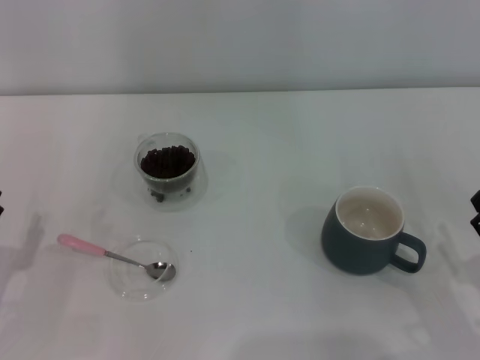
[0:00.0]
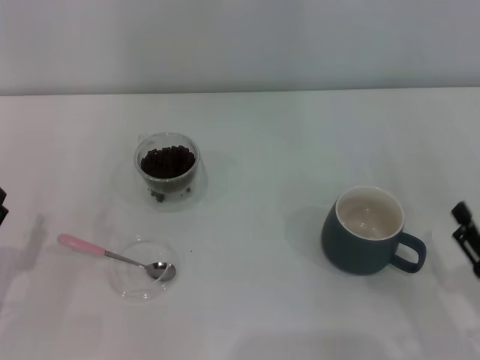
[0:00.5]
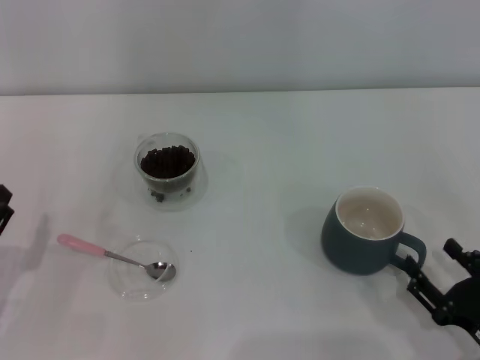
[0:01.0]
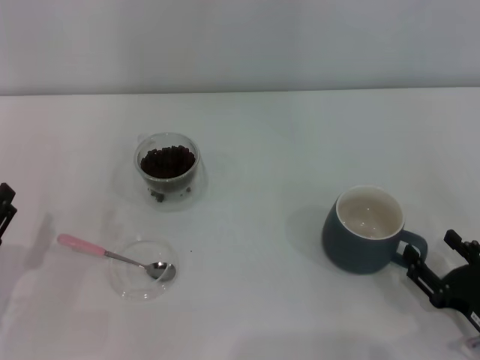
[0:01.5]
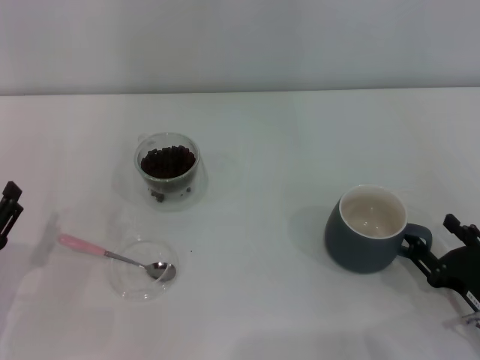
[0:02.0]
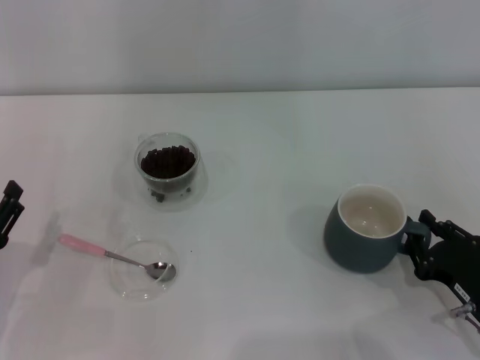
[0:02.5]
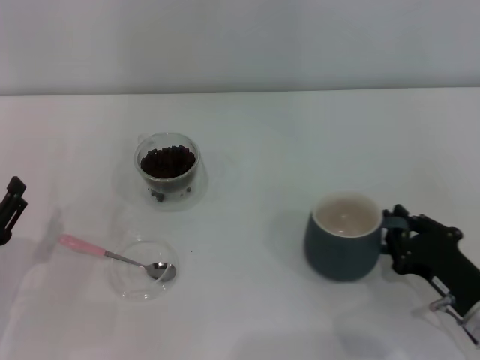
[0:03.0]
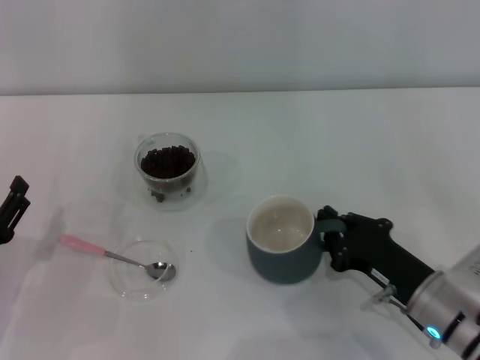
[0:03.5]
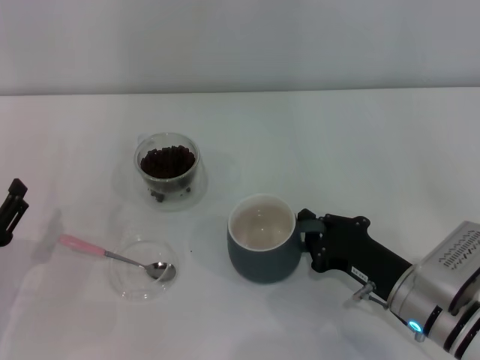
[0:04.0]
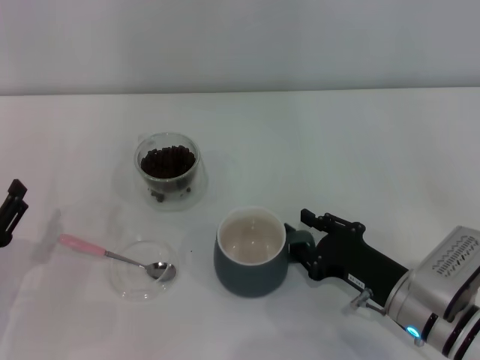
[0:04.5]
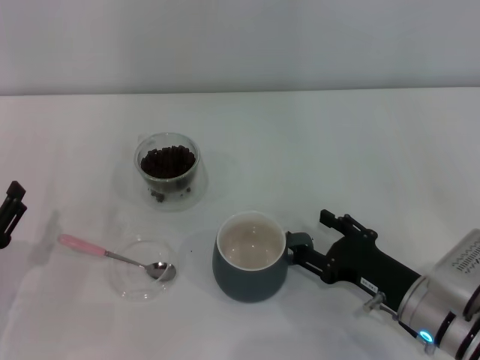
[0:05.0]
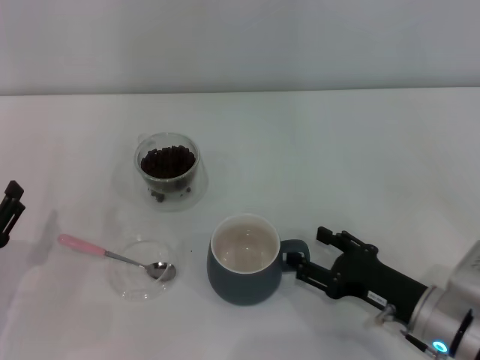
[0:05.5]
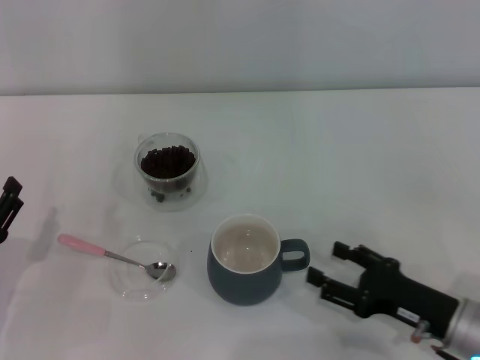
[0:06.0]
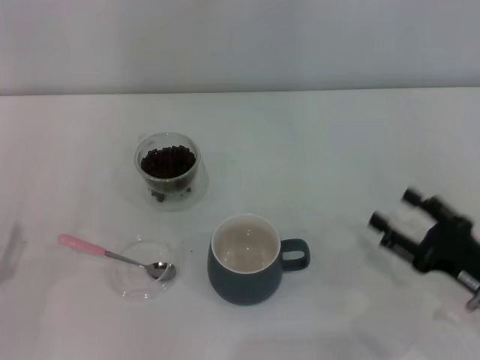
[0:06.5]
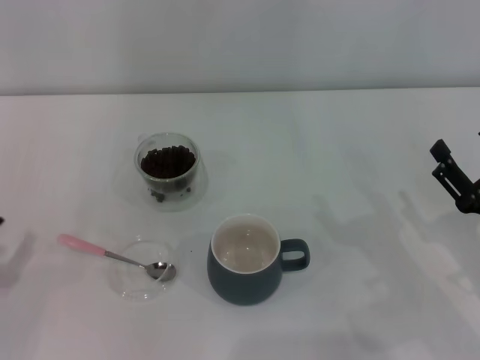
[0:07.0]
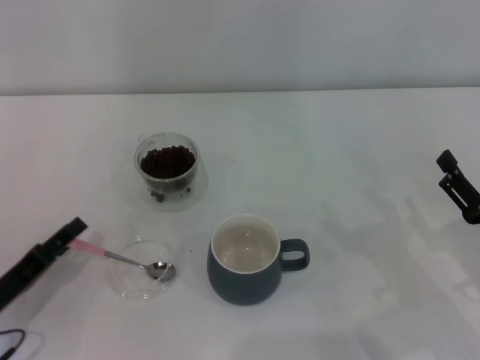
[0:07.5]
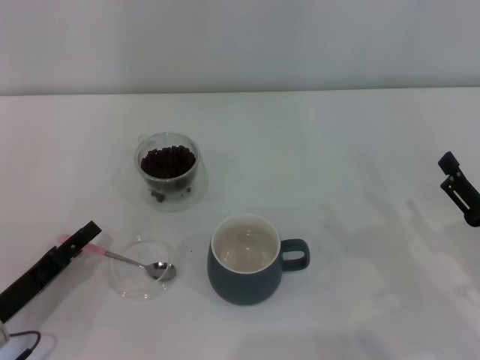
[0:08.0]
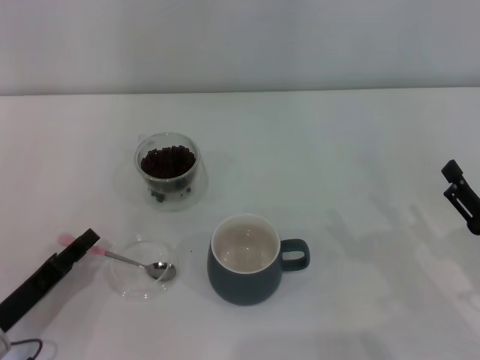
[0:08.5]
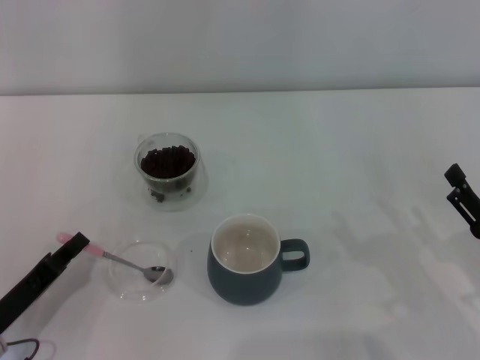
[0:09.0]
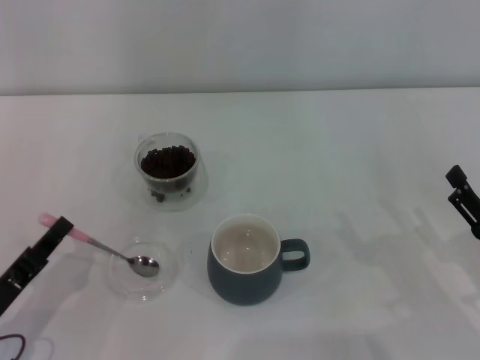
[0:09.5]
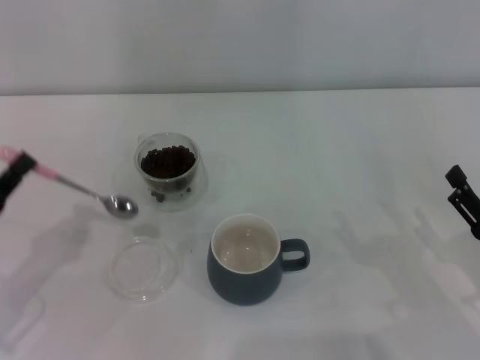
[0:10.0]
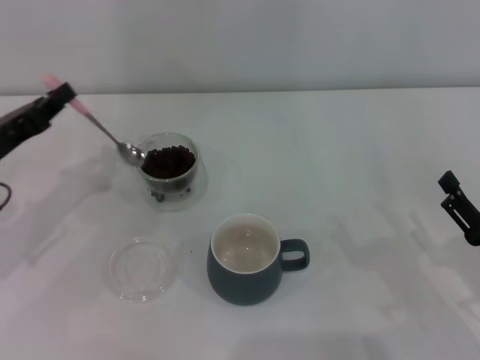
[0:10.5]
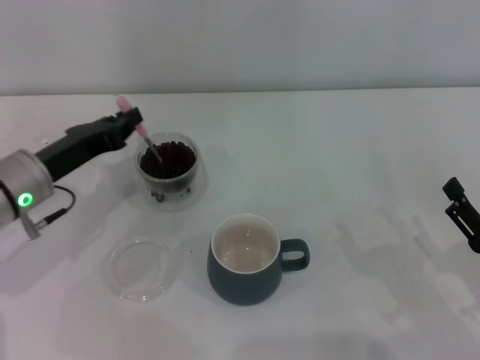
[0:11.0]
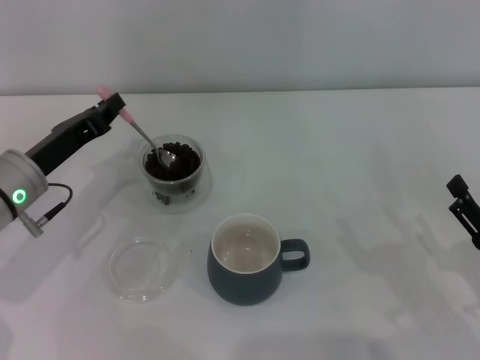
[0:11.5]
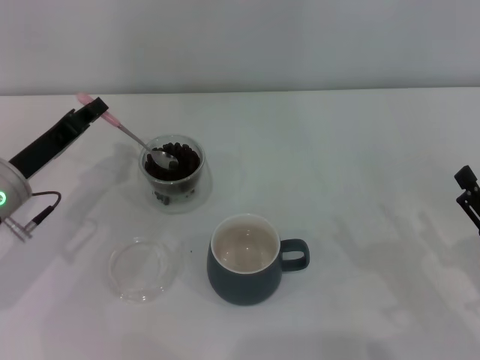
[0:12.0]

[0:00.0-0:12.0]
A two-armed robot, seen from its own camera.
Task of the whole recording: Use a pink spoon to take out the coffee beans from the glass and pour them into the gray cup.
Step, 0:06.5 to 0:09.5: Pick up the spoon with the right gripper.
0:00.0 to 0:02.0: There are only small adjustments of the grippers.
0:02.0 to 0:04.0: The right gripper is displaced to the left and forward by approximately 10 cm, and closes.
0:04.0 to 0:06.0: The right gripper ends up some 5 cm from where it was, and opens up.
0:06.0 to 0:08.0: The right gripper moves to the right, approximately 5 cm.
0:08.0 to 0:10.0: The left gripper goes some 5 cm upward, and closes up.
0:10.0 to 0:12.0: The left gripper shifts roughly 15 cm forward and to the right.

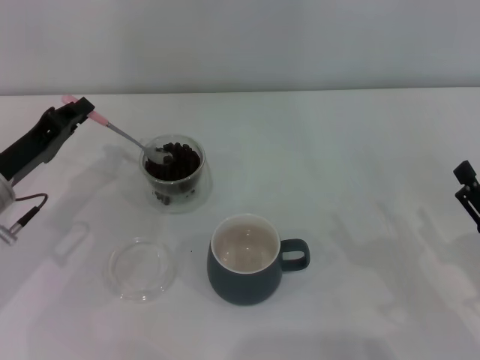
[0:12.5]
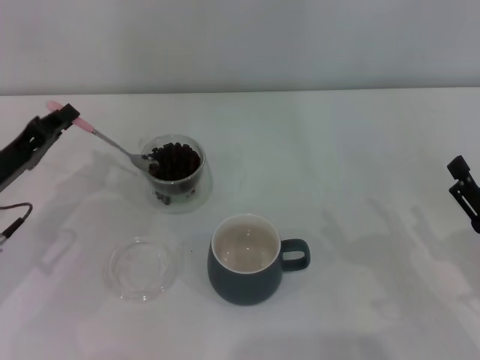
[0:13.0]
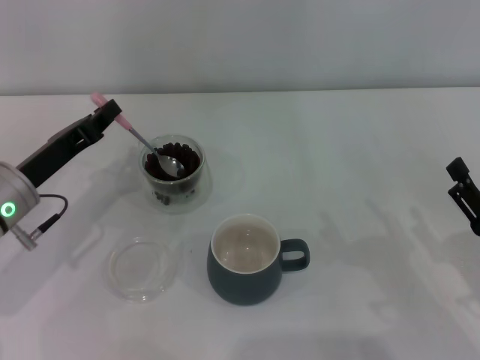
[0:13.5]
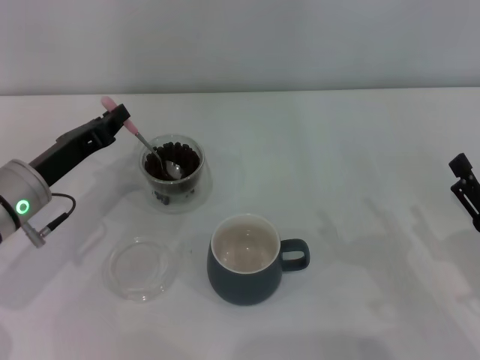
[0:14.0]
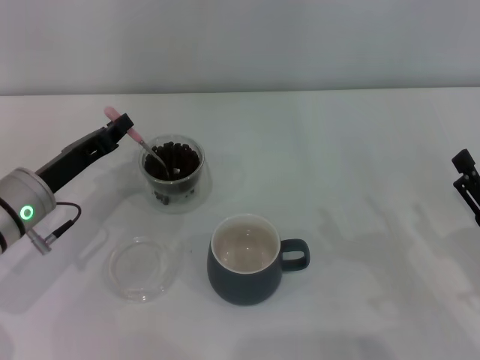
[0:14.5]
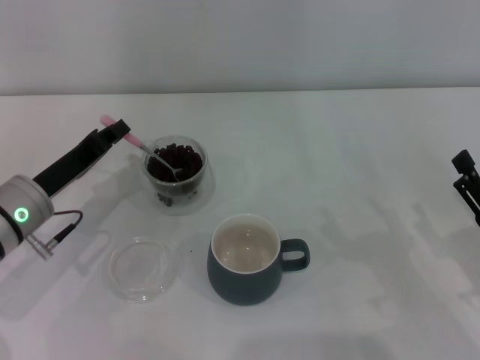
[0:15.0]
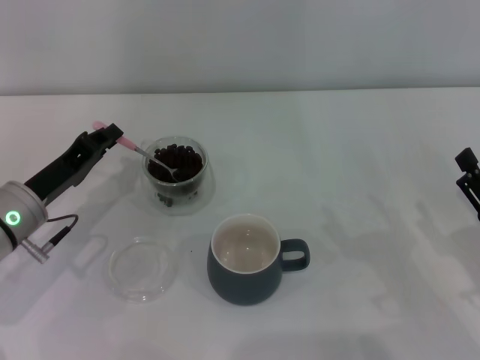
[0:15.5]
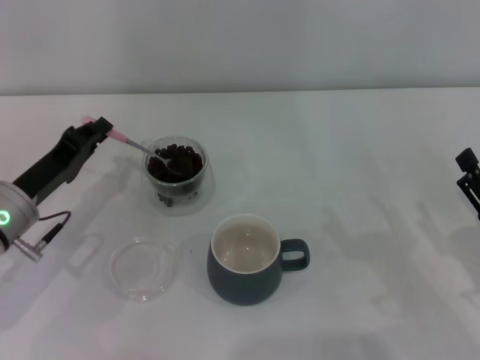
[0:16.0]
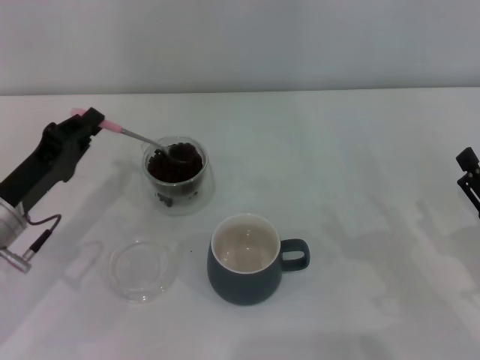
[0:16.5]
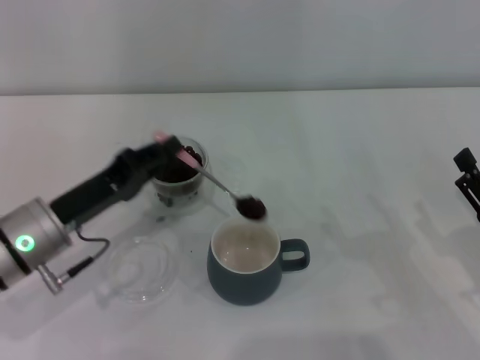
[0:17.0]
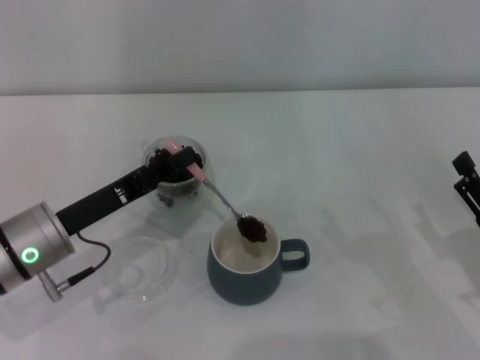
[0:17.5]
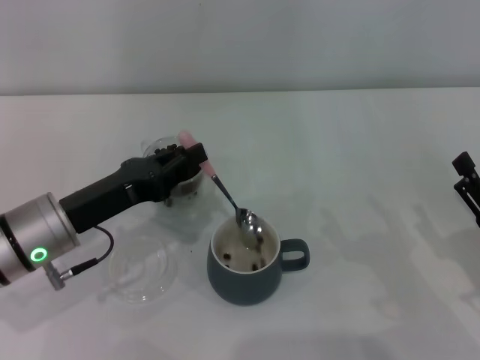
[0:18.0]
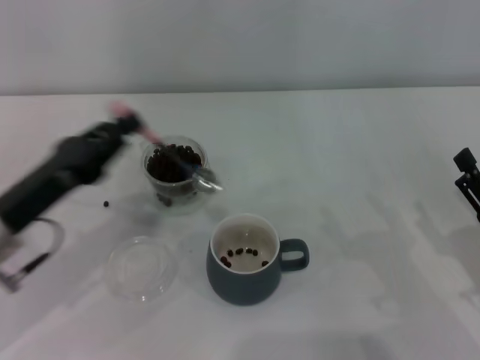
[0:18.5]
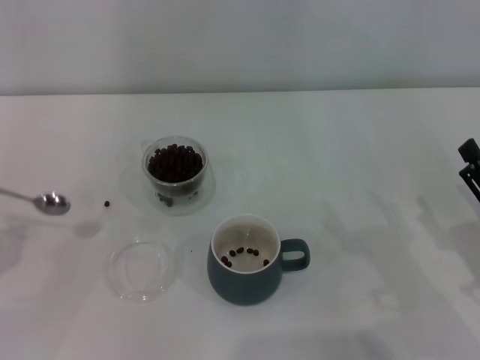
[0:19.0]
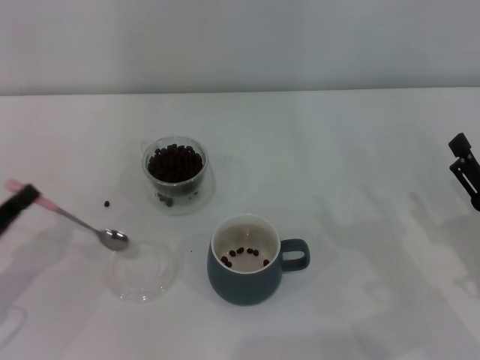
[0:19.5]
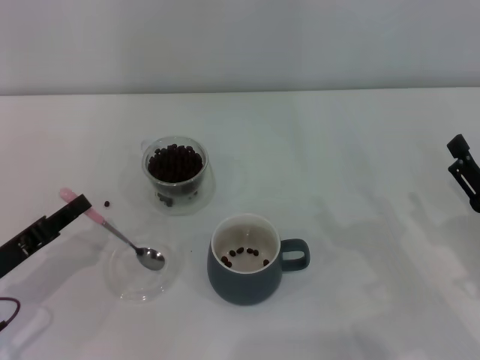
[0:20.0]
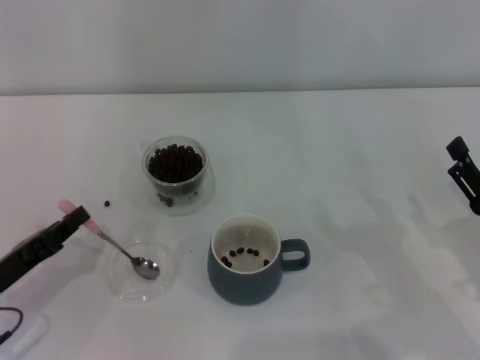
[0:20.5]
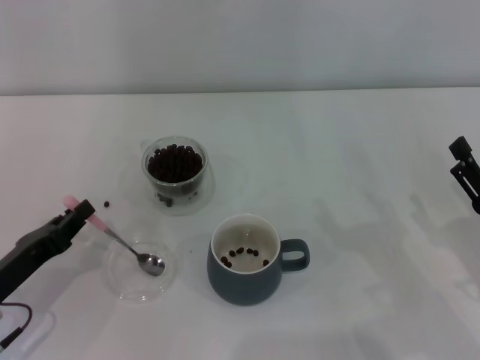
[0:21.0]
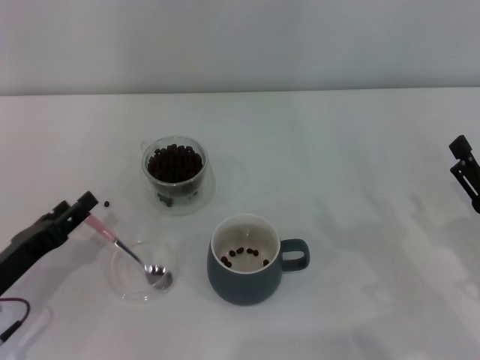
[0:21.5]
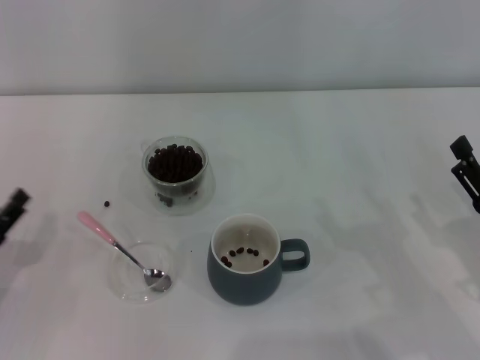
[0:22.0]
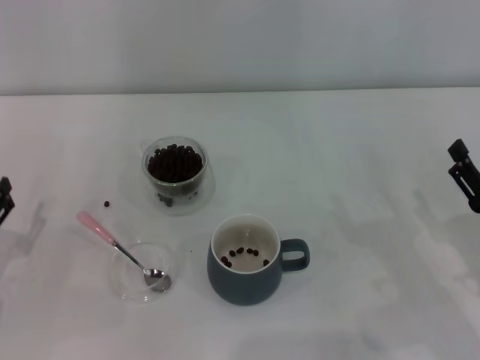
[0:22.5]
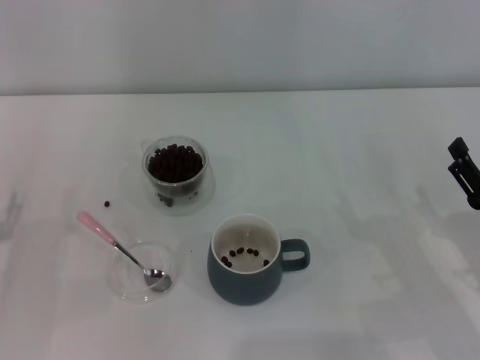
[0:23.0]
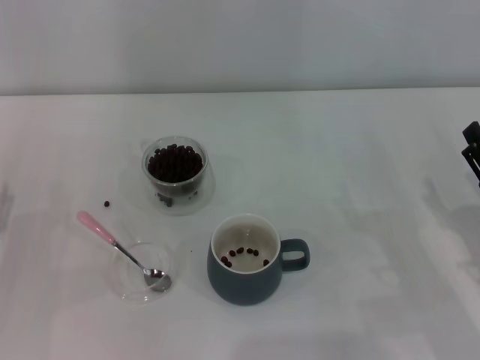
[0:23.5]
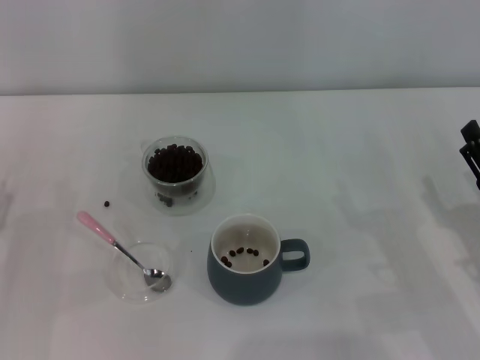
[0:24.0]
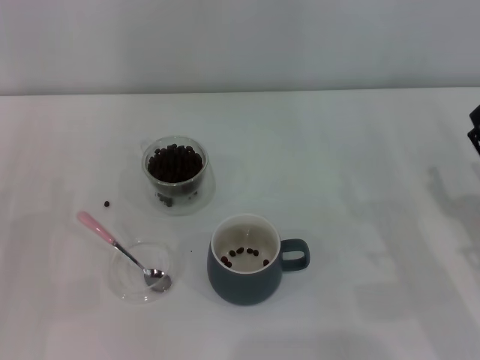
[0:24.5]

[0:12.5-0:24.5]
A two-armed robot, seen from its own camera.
Task of the whole recording: Use a pink spoon to take out the coffee beans from the glass and pour them into the gray cup.
0:18.5 to 0:20.5: The left gripper travels downward and to the left by some 10 cm.
0:20.5 to 0:22.5: The left gripper opens its fingers.

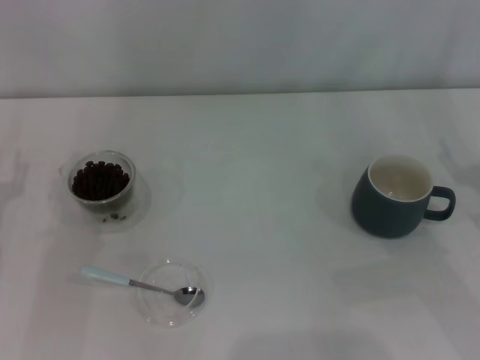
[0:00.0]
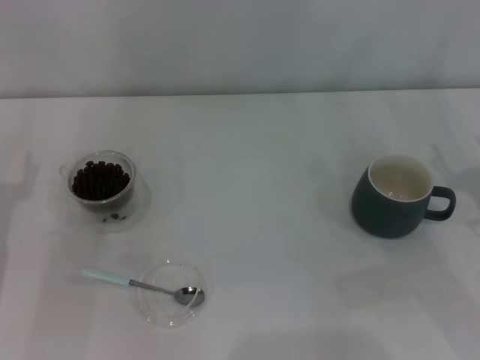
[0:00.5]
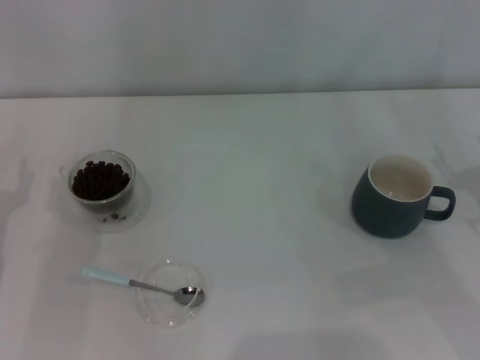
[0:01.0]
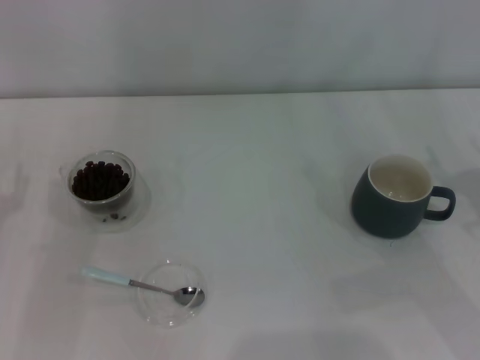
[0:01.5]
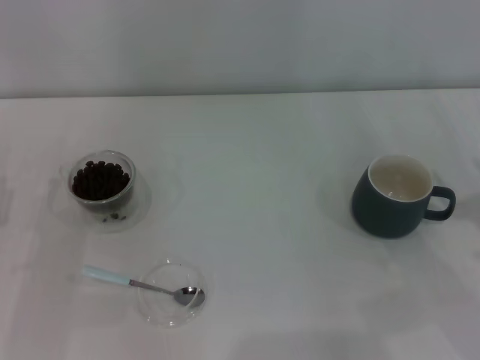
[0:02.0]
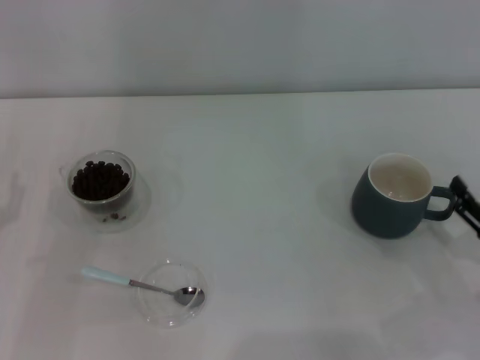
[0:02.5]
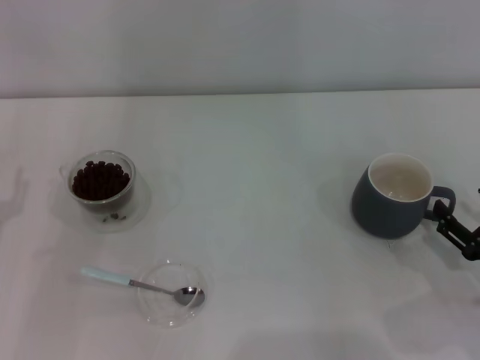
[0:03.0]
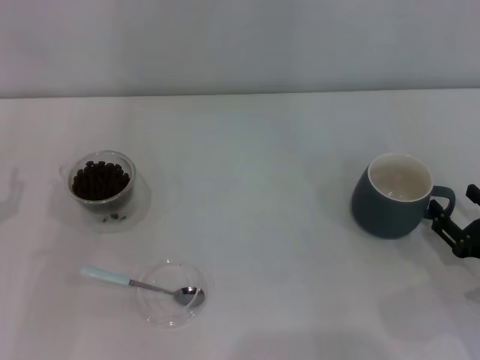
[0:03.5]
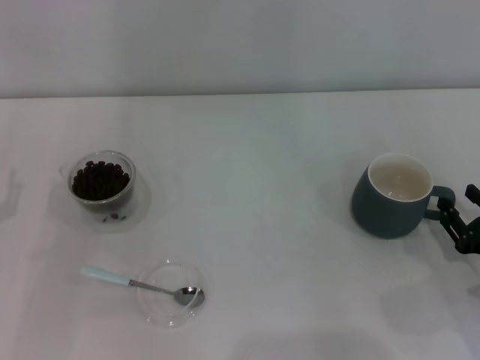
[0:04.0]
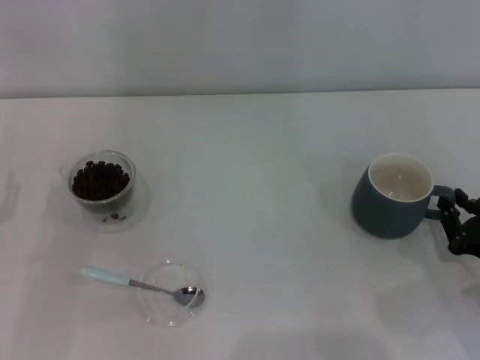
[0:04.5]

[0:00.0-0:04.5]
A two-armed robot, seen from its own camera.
Task of the whole recording: Use a blue spoon to take out the coffee beans from the glass and pour them into the gray cup.
0:02.0 to 0:04.5: The right gripper heads downward, covering approximately 5 cm, and closes its fingers.
